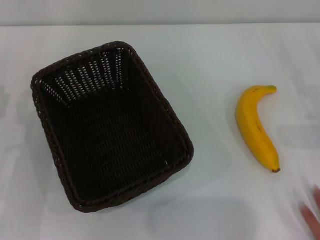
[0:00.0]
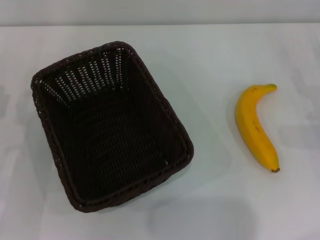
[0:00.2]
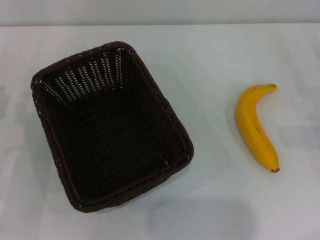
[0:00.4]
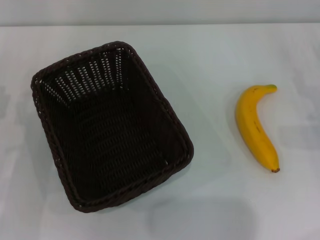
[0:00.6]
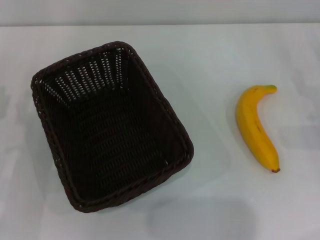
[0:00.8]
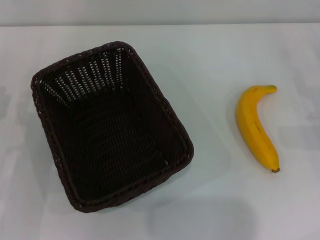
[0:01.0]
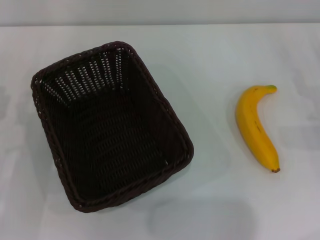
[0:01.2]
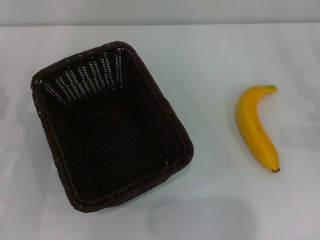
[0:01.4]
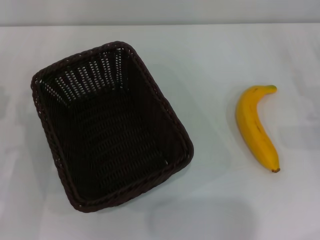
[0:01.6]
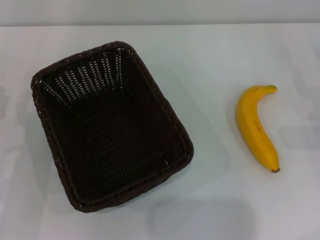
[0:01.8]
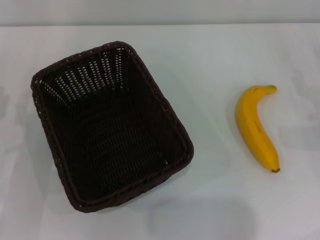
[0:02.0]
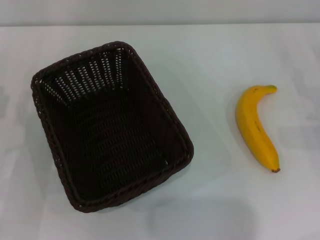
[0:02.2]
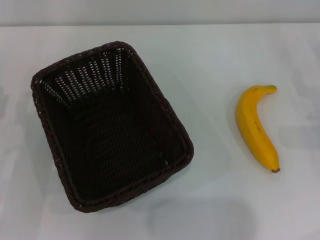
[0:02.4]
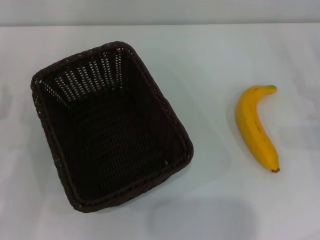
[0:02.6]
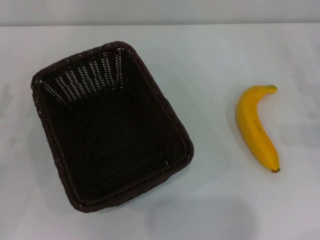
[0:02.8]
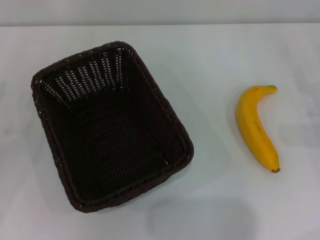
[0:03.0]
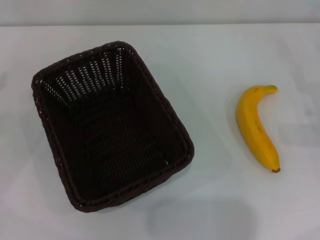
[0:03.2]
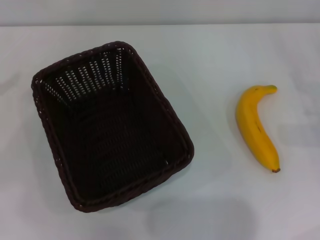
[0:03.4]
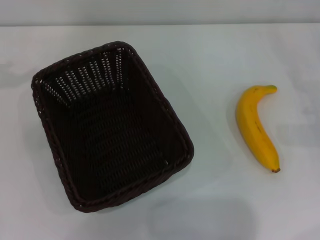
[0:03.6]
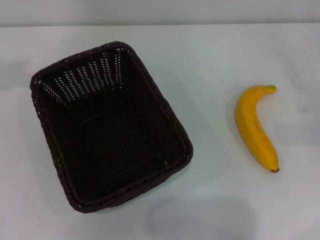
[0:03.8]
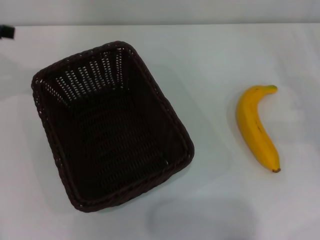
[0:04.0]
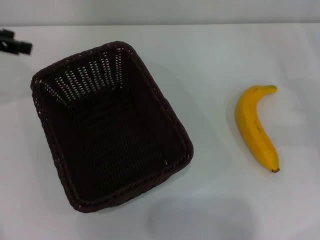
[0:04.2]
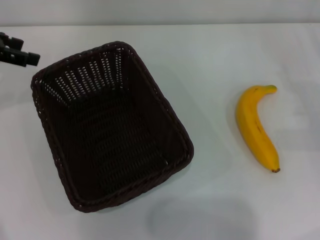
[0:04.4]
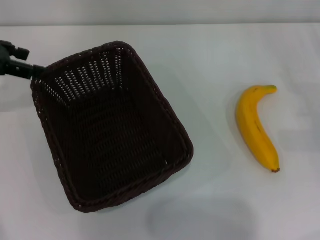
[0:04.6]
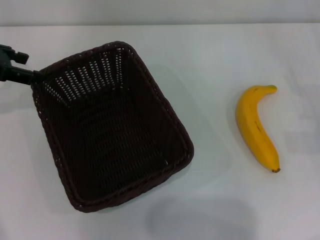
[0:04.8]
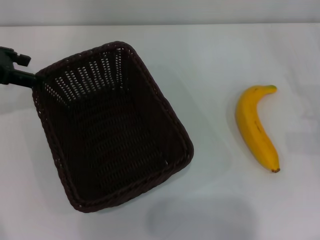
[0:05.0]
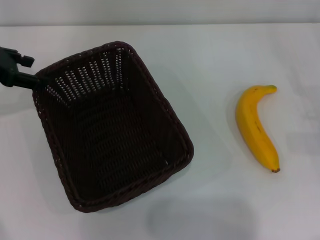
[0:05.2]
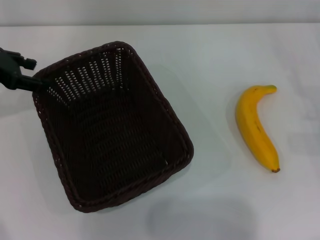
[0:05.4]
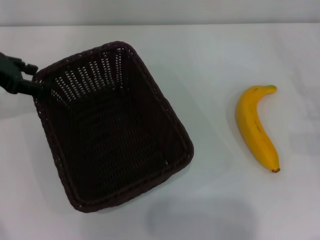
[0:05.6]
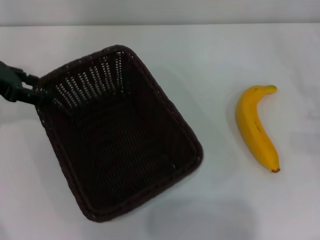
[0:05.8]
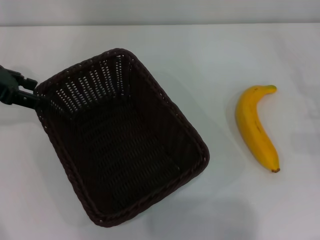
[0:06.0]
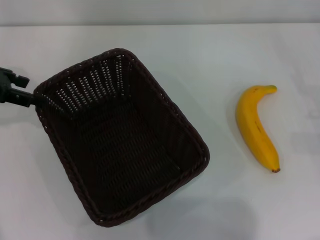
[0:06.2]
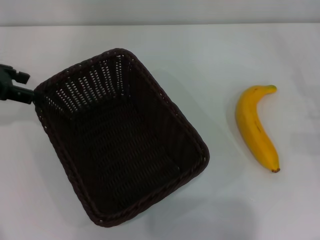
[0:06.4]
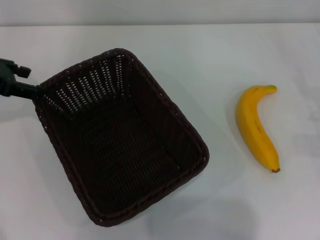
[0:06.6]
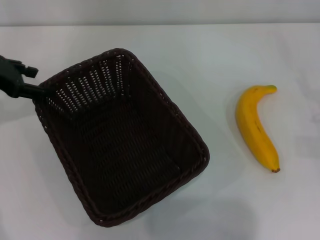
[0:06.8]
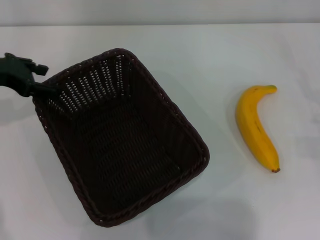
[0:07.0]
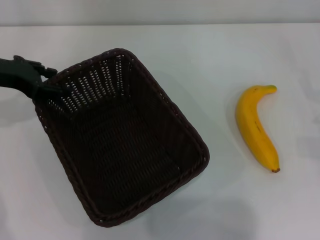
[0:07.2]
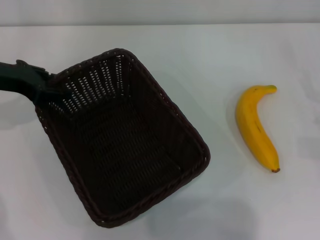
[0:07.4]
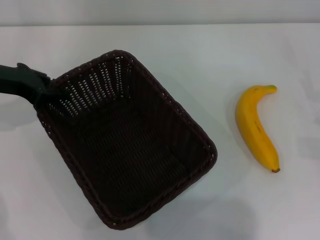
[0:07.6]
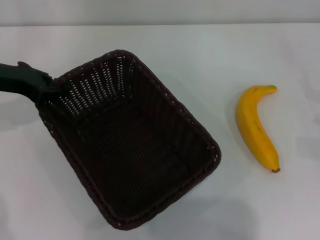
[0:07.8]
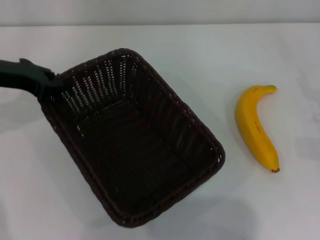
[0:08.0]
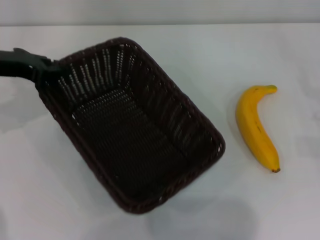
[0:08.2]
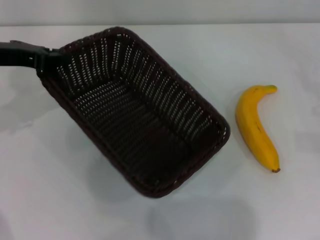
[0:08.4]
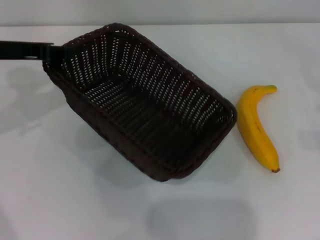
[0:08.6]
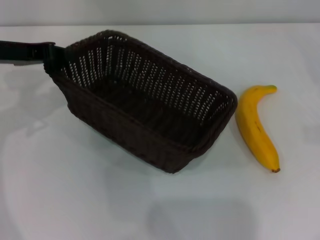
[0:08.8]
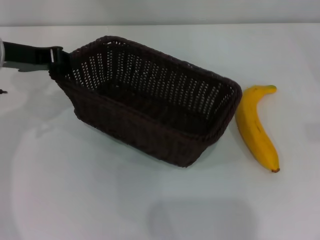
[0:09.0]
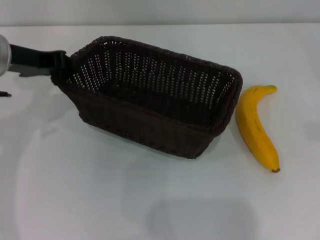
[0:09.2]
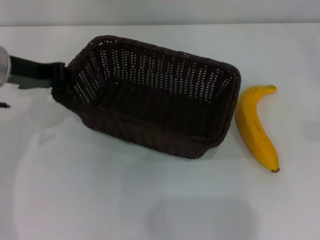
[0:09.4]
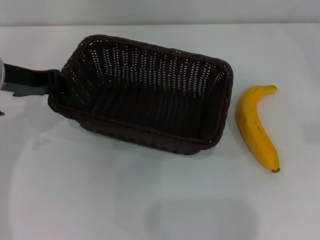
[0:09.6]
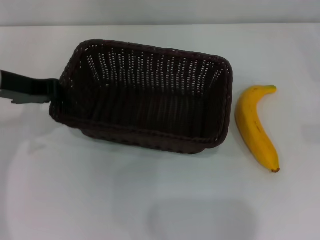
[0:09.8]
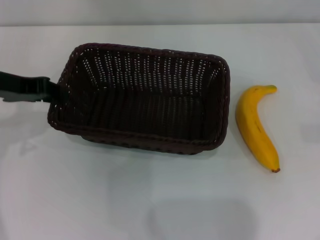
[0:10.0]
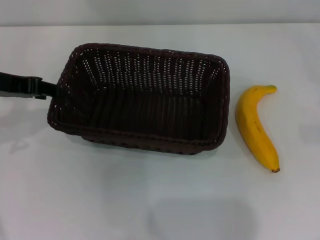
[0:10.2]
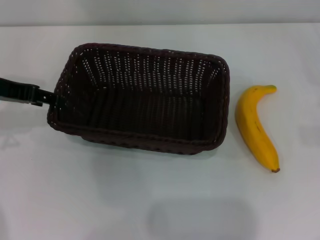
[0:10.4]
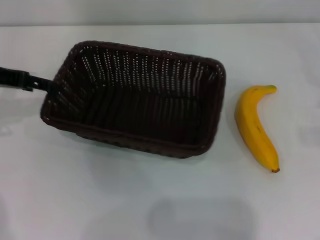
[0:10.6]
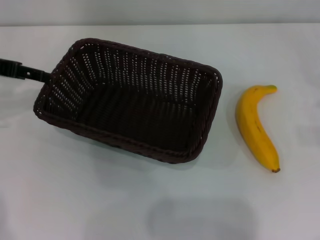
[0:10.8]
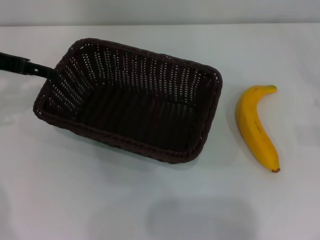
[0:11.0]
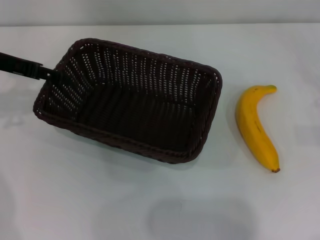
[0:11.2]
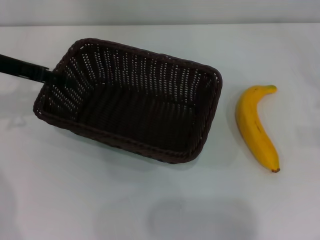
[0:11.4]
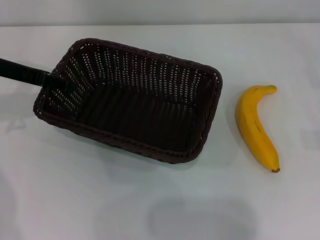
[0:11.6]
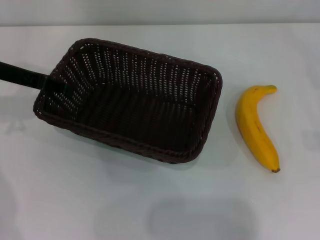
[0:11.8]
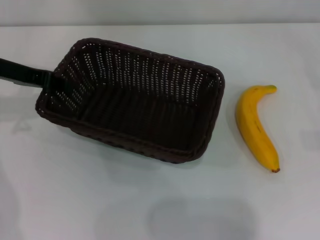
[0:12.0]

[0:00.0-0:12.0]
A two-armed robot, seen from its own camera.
Step, 0:00.0 to 0:08.6: Pick up the dark basket with the left gripper.
0:00.0 to 0:01.6: The two grippers keep their place.
0:03.0 to 0:04.4: The left gripper shifts some 20 cm forward, upward and to the right.
0:04.4 to 0:06.0: There are only small adjustments of the grippers.
0:06.0 to 0:07.6: The left gripper closes up.
0:07.6 to 0:09.0: The left gripper shifts some 5 cm to the right, while the right gripper goes approximately 10 cm to the right and upward.
0:09.0 to 0:10.4: The left gripper opens up.
0:10.4 to 0:12.0: The left gripper opens, then closes again.

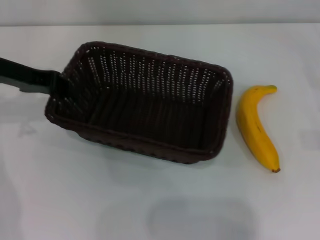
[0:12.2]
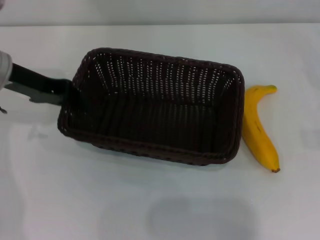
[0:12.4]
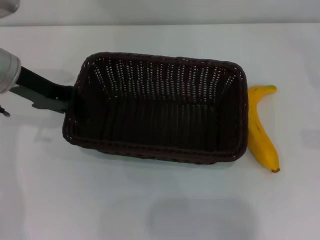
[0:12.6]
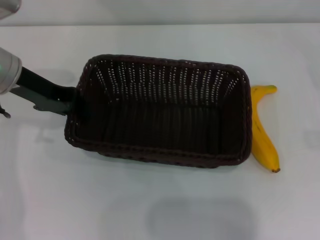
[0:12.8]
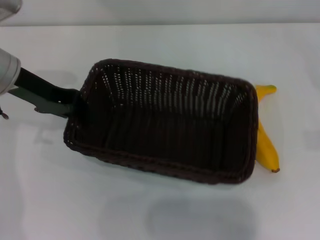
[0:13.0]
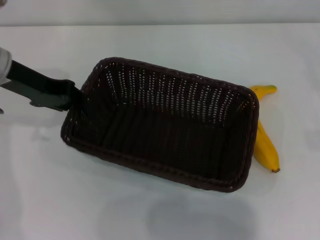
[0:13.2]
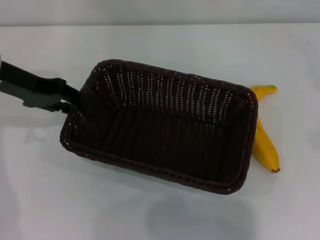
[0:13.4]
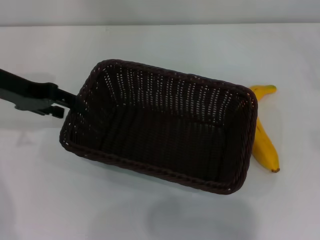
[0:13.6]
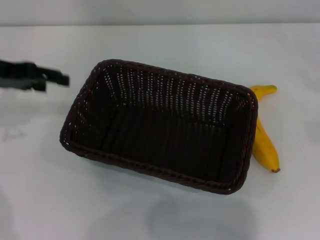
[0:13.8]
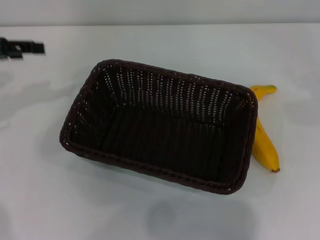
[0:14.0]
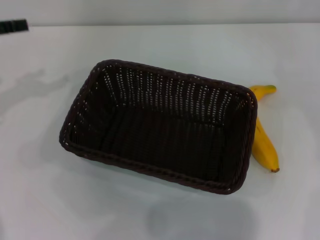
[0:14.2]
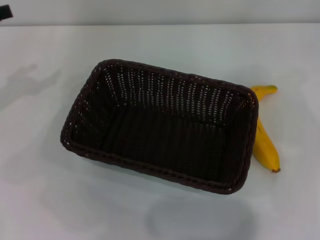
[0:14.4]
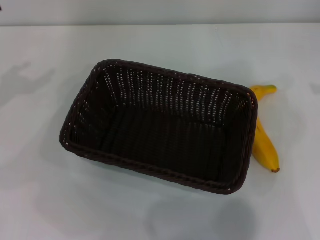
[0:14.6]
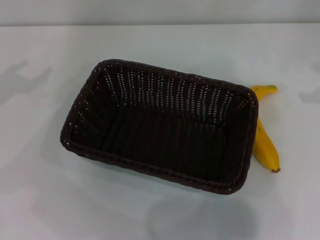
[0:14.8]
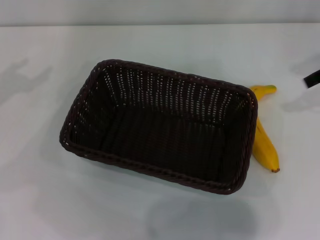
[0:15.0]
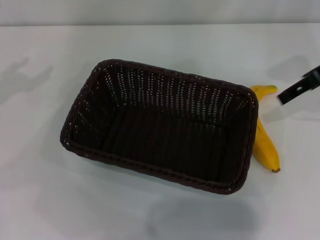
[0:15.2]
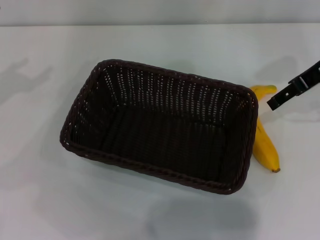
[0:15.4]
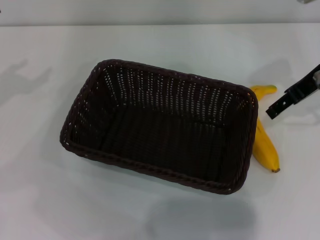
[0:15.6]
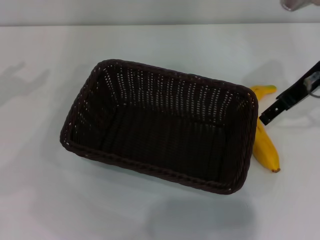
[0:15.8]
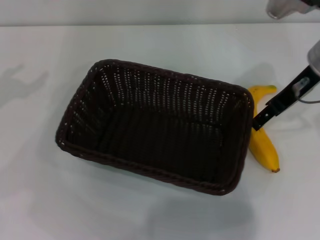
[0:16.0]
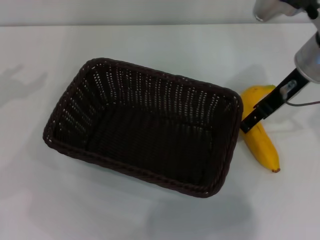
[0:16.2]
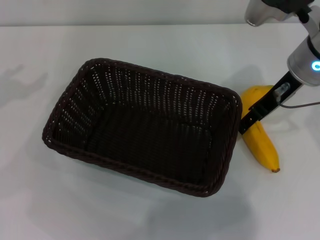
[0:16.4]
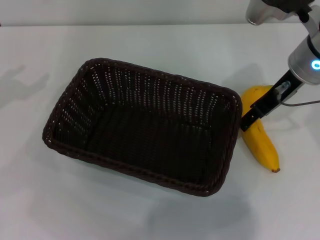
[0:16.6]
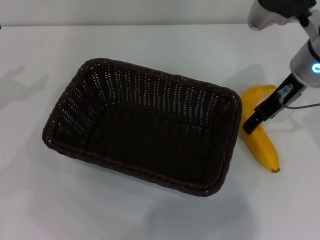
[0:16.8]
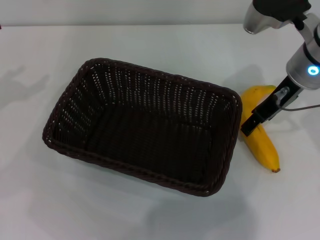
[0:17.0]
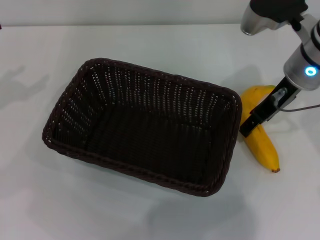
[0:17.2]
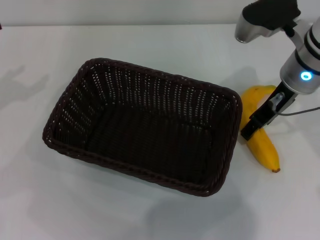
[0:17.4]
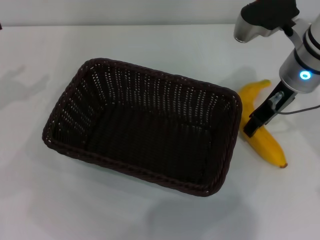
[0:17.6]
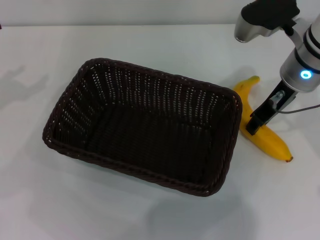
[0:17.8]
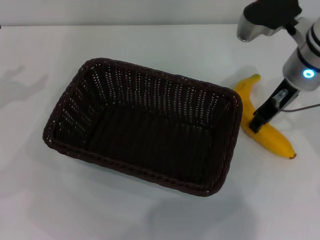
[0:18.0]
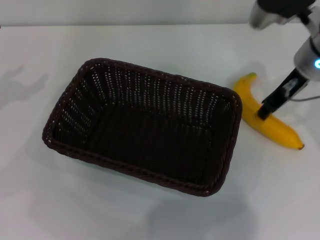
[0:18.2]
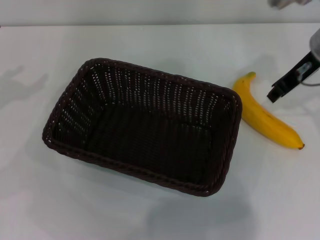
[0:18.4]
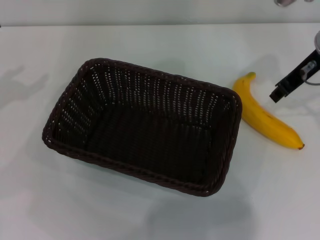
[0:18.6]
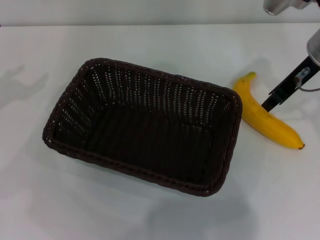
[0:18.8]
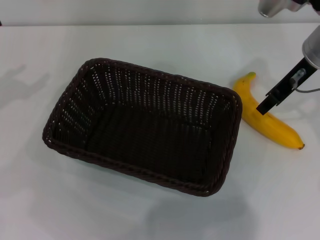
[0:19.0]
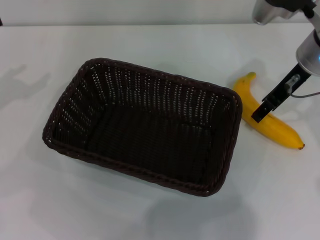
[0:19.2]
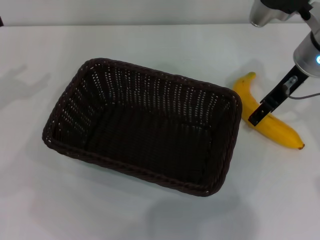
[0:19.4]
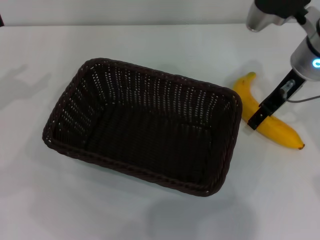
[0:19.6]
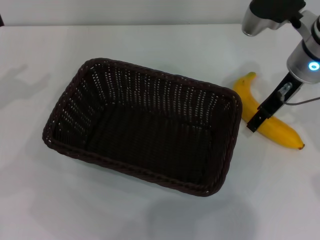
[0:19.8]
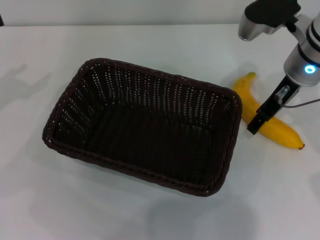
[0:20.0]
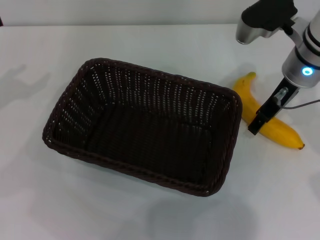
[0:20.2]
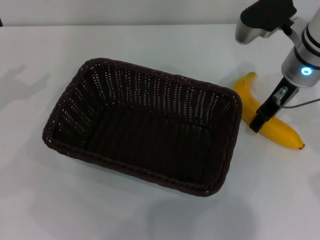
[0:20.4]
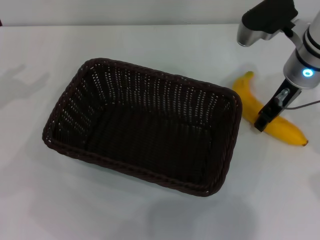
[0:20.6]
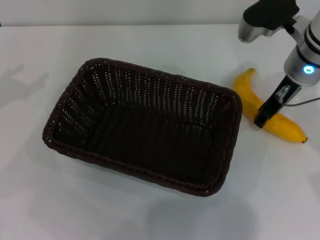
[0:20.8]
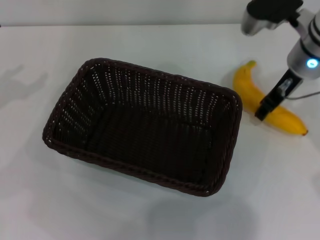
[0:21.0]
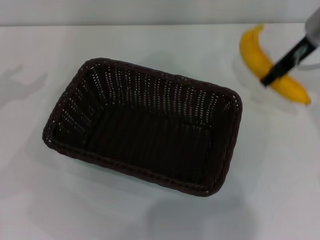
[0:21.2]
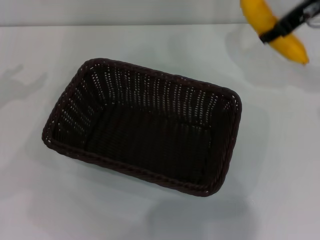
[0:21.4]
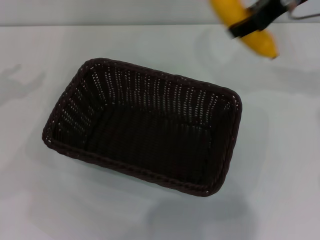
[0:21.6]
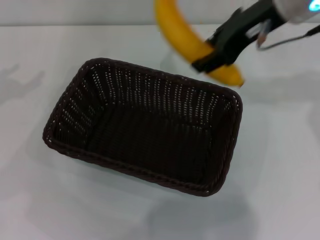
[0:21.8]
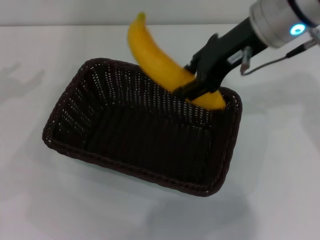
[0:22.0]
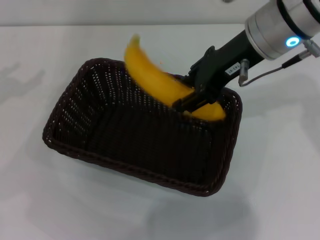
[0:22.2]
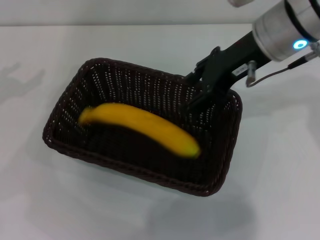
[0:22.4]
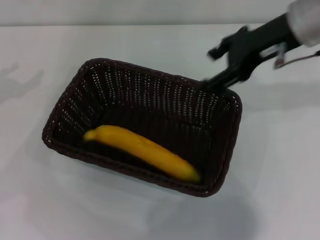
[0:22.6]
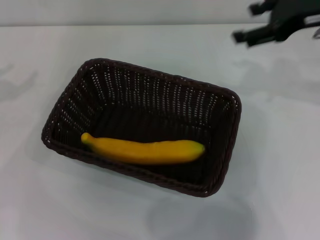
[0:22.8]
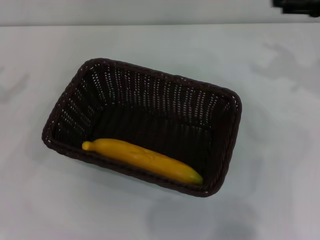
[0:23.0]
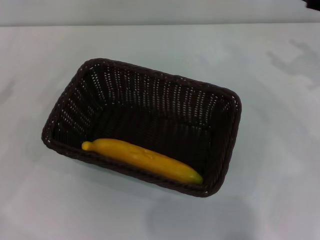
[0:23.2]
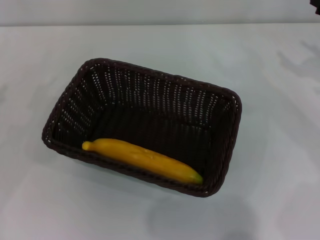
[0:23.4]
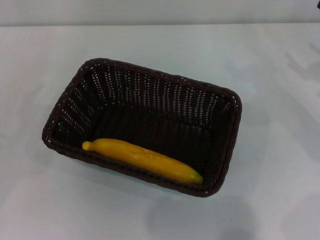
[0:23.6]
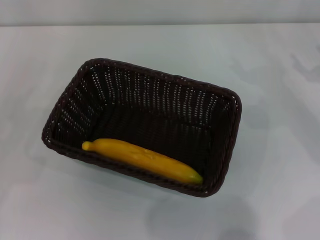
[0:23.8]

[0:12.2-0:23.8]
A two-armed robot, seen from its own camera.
Step, 0:14.0 to 0:21.4: Pick up the banana with the right gripper.
Step, 0:21.6 to 0:22.4: Place the banana into the dark basket with the right gripper.
0:12.2 to 0:13.6: The left gripper opens its fingers.
0:13.6 to 0:15.0: The left gripper moves to the left, about 10 cm, and opens.
0:15.0 to 0:16.6: The right gripper travels to the left and downward by roughly 15 cm.
0:16.6 to 0:18.0: The right gripper closes.
0:18.0 to 0:19.4: The grippers make only small movements.
0:19.4 to 0:21.0: The right gripper opens, then closes again.
0:21.0 to 0:22.4: The right gripper shifts some 5 cm upward.
0:22.4 to 0:23.8: The right gripper shifts approximately 25 cm to the right and downward, and opens; the left gripper shifts about 10 cm backward and downward.
